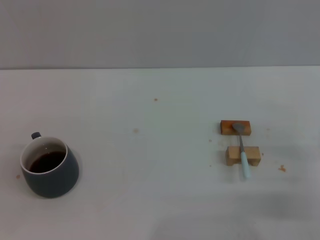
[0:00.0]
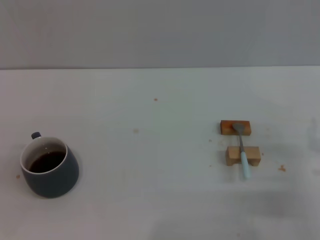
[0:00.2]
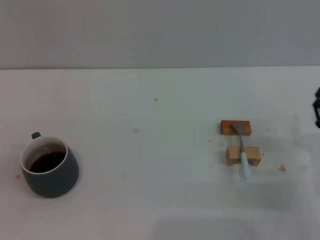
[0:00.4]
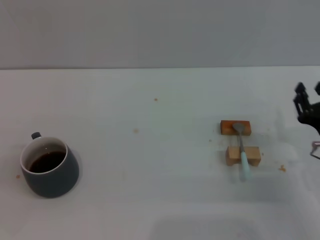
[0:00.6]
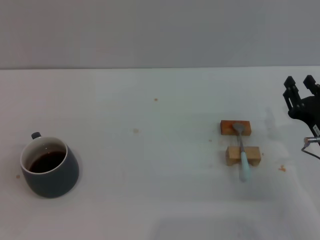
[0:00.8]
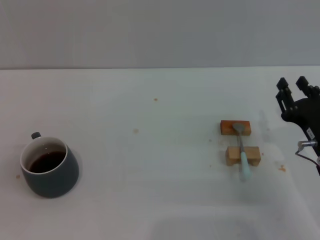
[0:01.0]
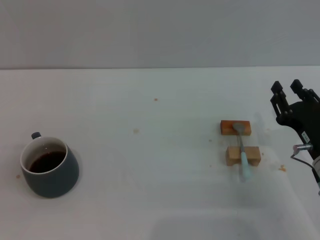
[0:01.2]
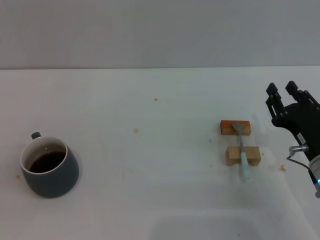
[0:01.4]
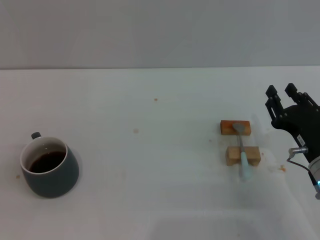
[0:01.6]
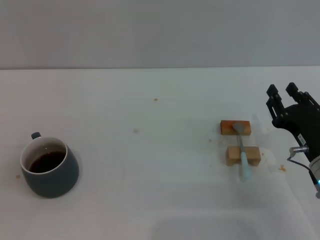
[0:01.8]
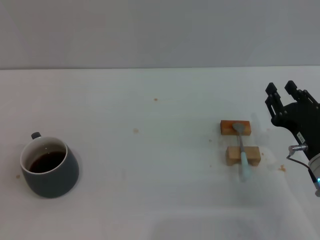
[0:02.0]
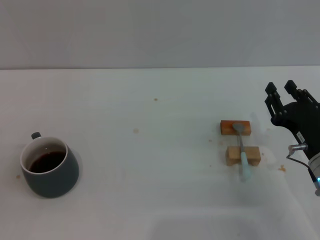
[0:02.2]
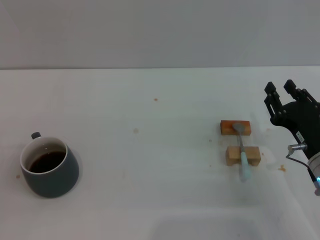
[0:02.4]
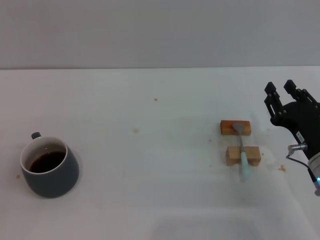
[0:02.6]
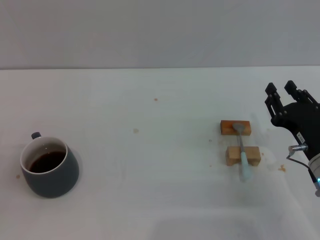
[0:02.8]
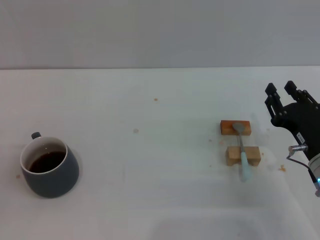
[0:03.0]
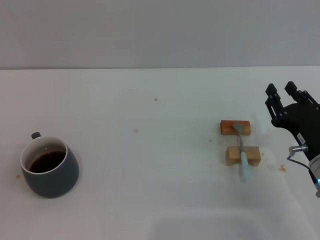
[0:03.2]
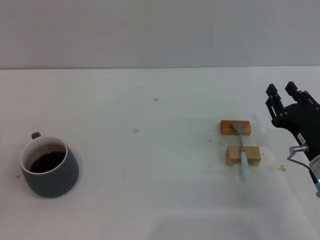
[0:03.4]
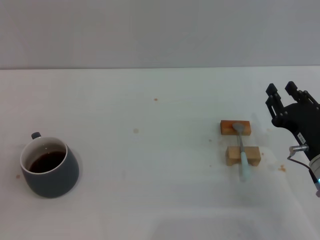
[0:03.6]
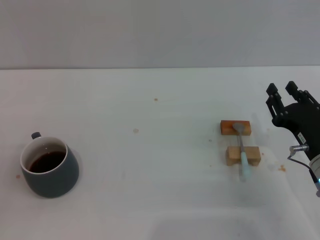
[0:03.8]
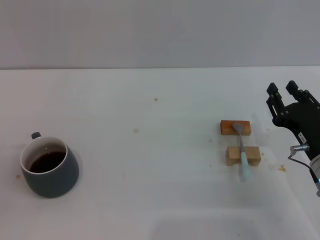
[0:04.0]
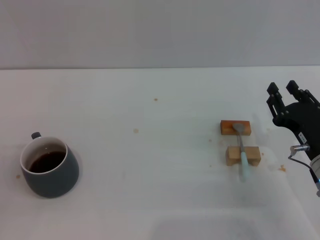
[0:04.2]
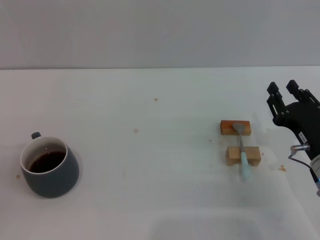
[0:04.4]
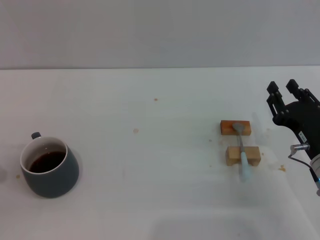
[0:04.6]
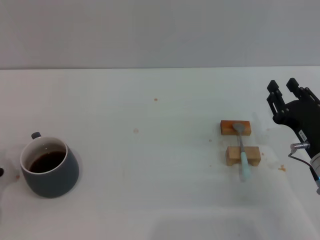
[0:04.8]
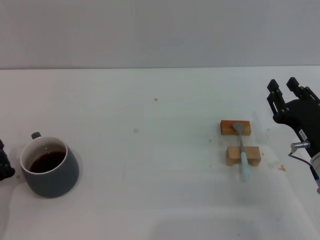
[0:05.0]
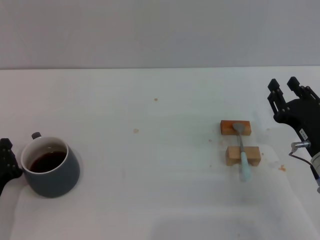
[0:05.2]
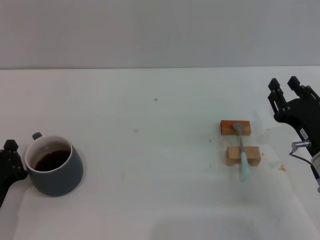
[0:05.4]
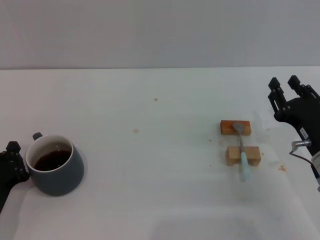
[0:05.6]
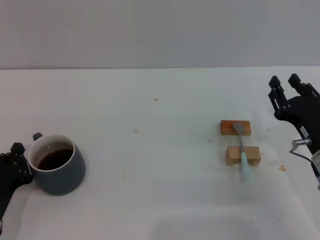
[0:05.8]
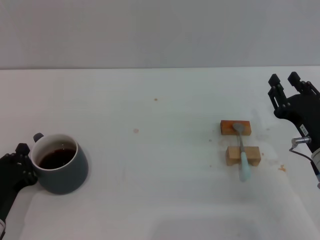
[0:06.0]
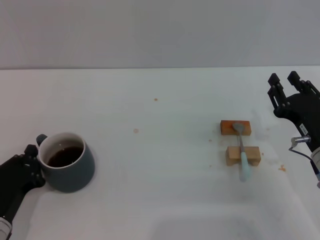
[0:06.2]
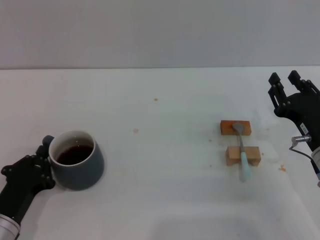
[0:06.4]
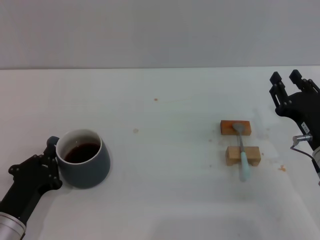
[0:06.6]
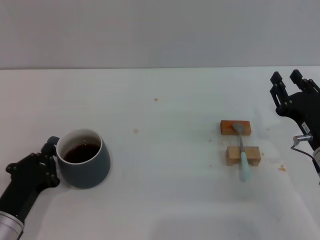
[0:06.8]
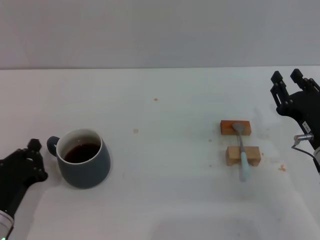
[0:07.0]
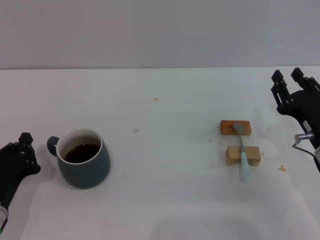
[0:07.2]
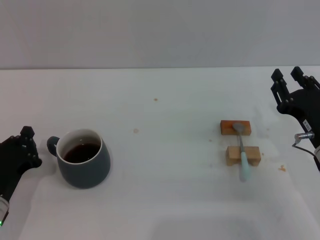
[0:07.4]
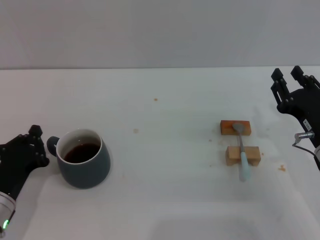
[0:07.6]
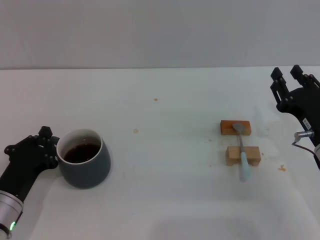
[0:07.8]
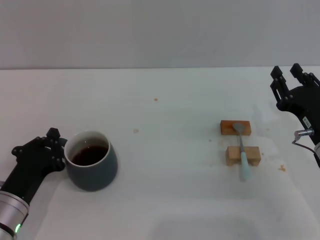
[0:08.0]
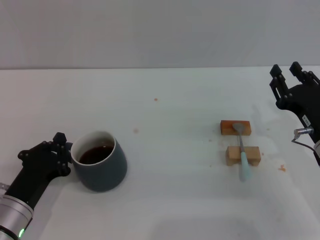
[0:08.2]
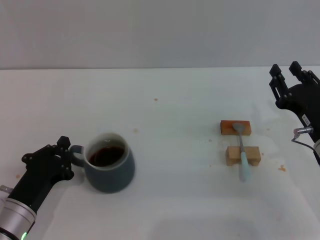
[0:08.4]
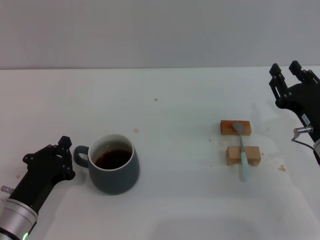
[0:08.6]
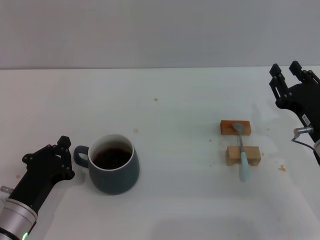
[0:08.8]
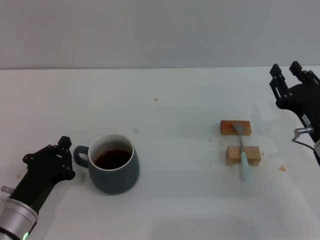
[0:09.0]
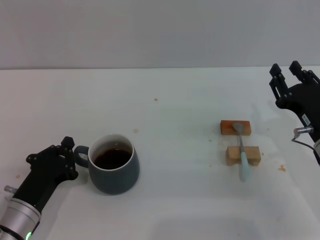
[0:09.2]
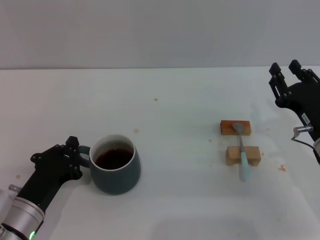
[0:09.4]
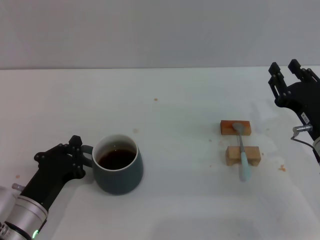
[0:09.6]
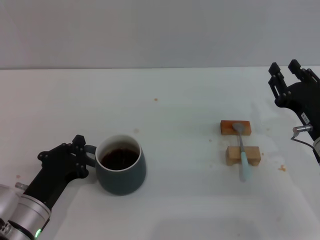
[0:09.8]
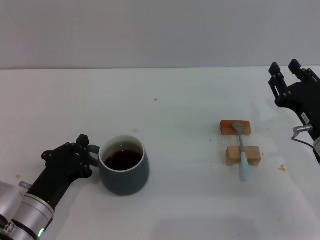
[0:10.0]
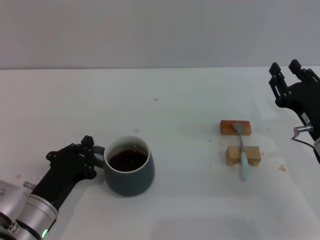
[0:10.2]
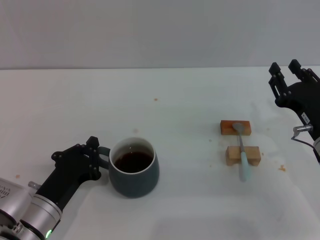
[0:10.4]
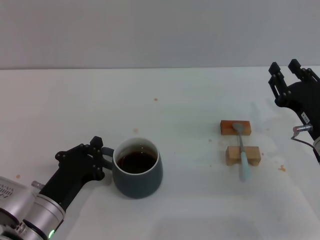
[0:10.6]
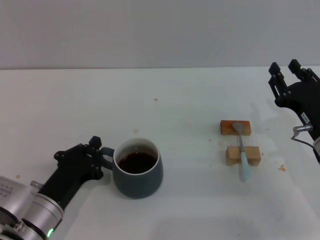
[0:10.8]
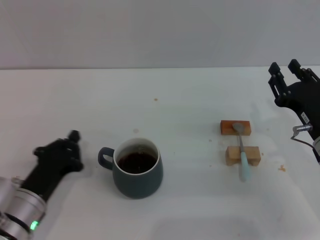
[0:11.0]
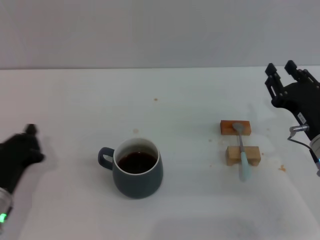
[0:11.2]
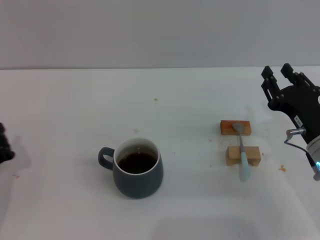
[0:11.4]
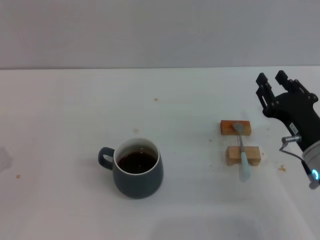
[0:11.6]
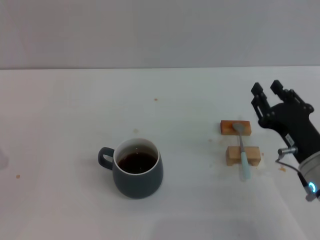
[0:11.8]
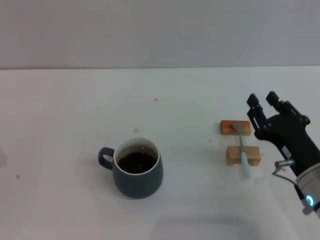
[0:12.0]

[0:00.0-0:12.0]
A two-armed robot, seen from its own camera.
Task of the whole recording: Move the grey cup to the center, lift the blue spoon, stir it three times in the cup, and put the spoon into the cup.
Step, 0:00.0 to 0:11.2: Move the cup with coffee to the center of view with the left gripper.
0:00.0 to 0:01.6: The right gripper travels to the left by some 5 cm.
0:01.6 to 0:03.0: There are only small adjustments of the grippers.
0:04.4 to 0:06.0: The left gripper goes about 5 cm to the right.
0:06.0 to 0:09.0: The grippers make only small movements.
0:09.0 to 0:10.4: The grippers move only a little.
0:10.4 to 0:12.0: The left gripper is displaced to the left by roughly 15 cm. The right gripper heads backward, covering about 5 cm.

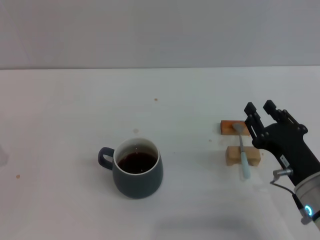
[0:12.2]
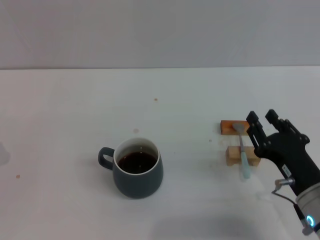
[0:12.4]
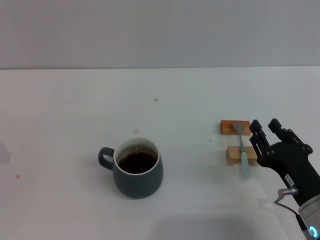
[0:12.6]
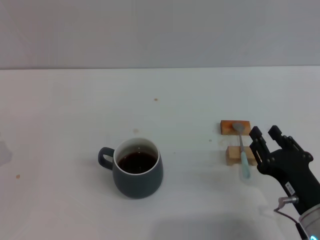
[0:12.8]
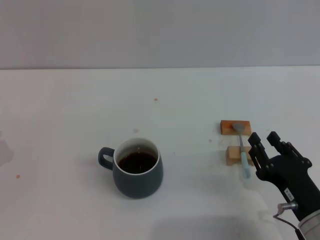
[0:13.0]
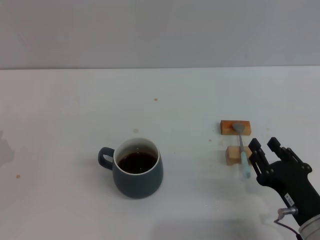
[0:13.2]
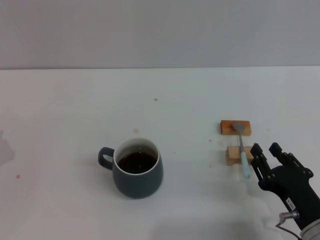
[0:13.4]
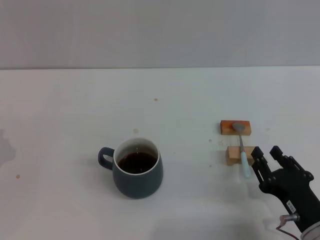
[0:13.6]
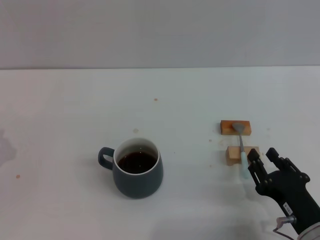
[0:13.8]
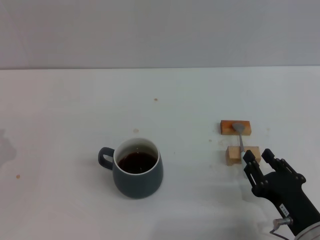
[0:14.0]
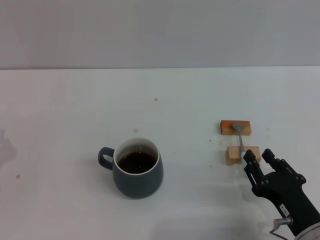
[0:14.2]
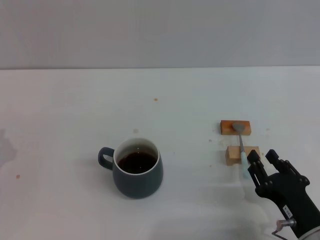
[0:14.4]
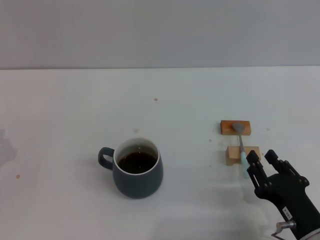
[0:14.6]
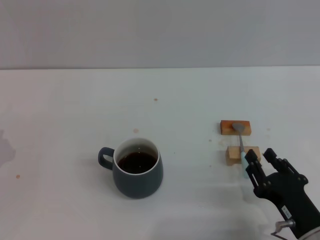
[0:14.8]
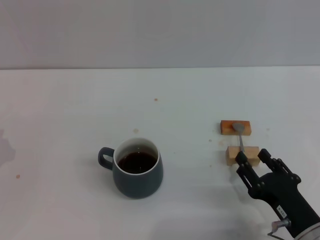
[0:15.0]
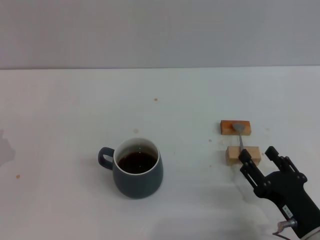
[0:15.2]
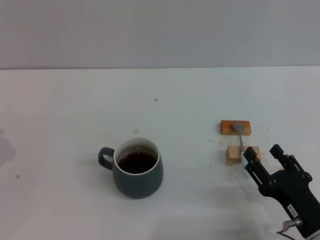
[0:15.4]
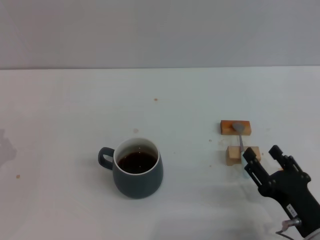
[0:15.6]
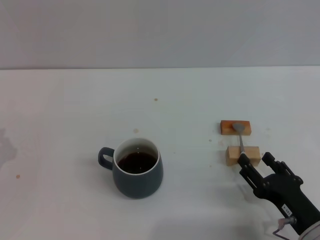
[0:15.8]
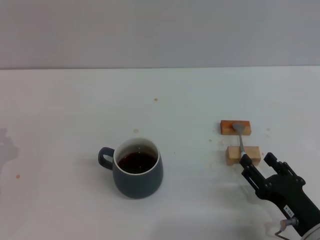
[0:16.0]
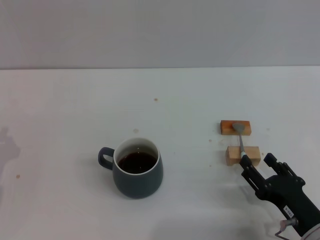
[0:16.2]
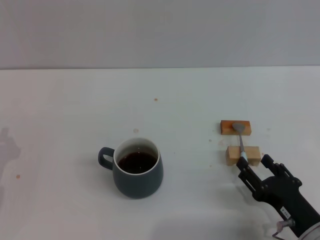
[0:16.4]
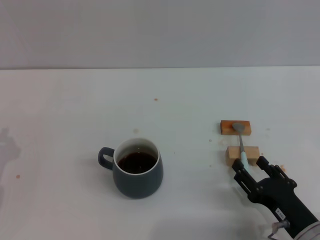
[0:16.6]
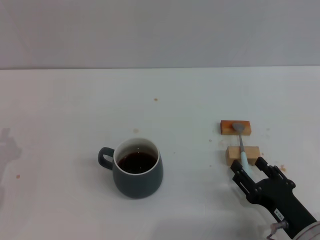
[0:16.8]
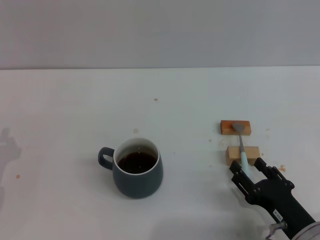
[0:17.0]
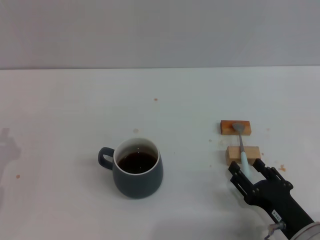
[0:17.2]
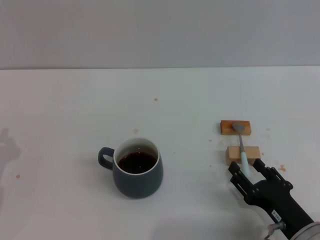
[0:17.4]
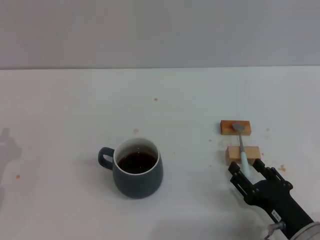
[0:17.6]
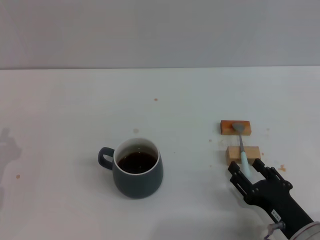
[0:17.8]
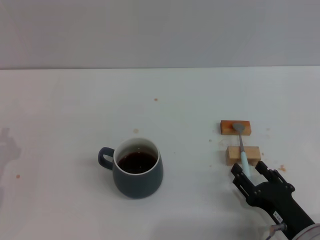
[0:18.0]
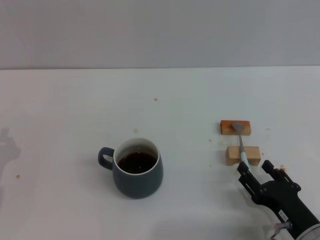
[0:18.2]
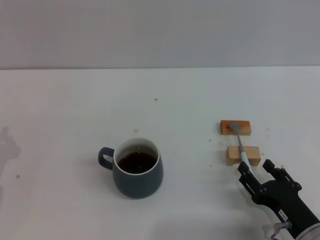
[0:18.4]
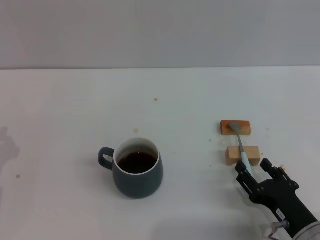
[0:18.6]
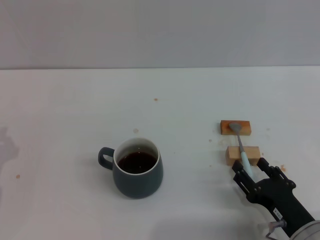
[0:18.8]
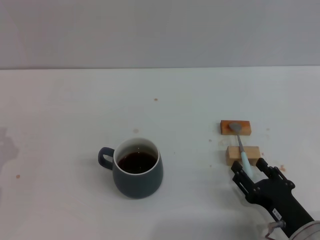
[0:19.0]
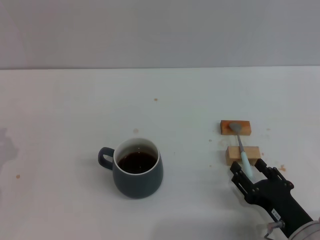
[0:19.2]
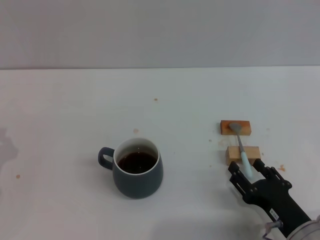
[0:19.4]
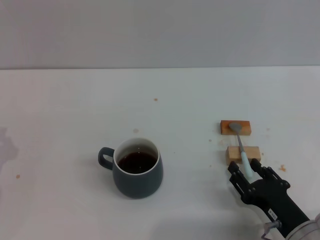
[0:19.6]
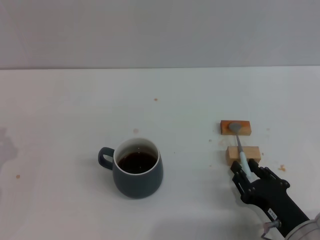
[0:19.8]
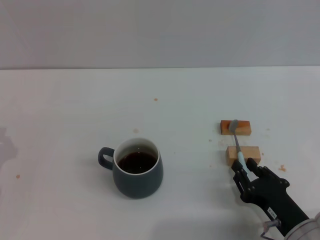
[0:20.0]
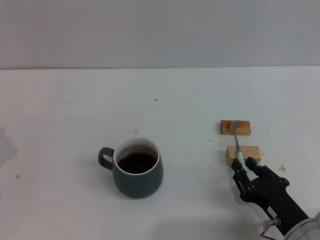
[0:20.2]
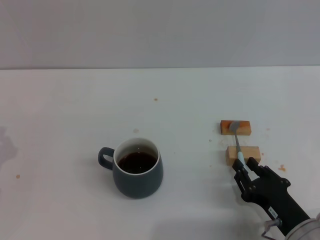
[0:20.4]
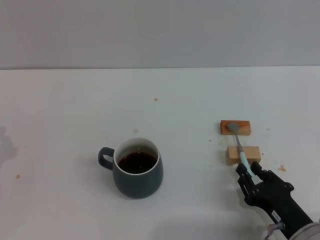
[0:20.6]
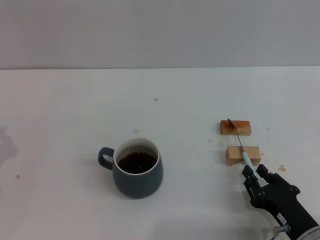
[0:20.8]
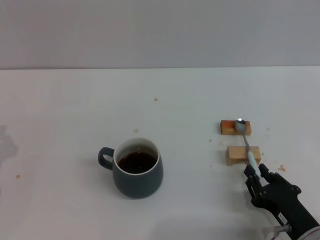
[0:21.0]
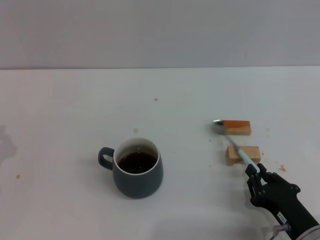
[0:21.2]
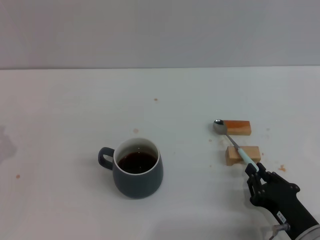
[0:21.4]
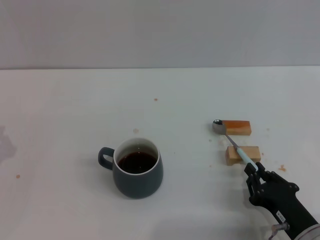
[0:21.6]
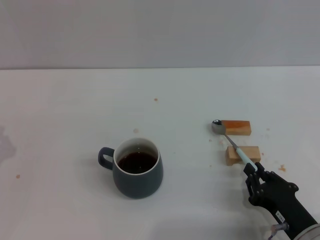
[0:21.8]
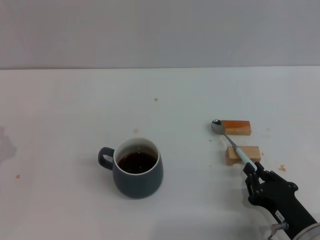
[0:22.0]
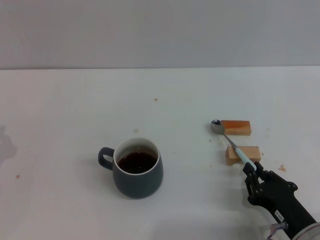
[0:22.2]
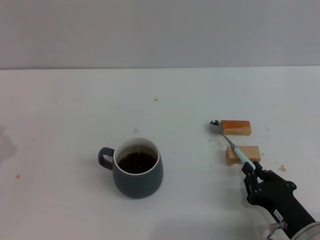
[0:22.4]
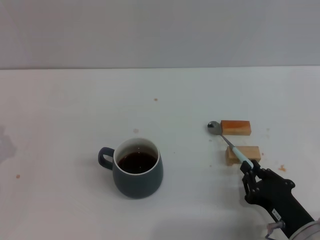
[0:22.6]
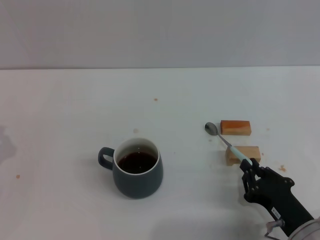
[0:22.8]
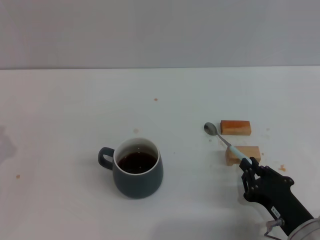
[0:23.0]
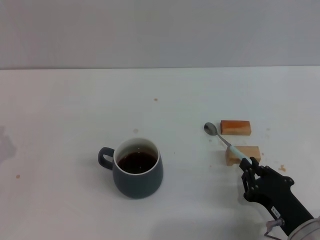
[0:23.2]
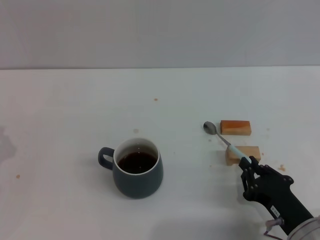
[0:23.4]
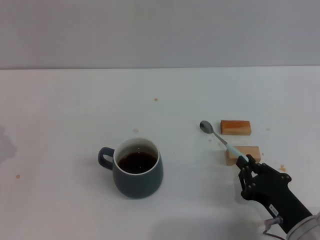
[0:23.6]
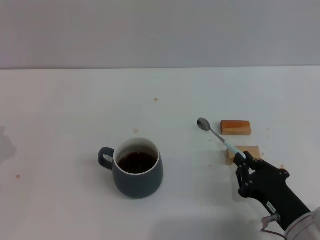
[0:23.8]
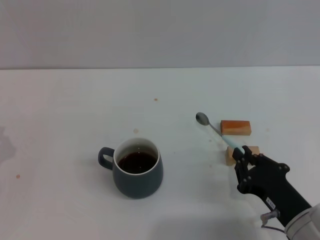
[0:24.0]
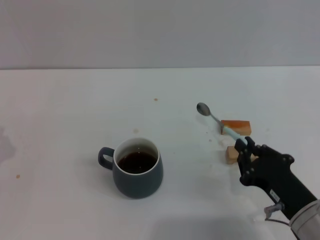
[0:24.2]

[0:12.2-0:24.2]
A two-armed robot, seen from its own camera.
Task of the whole recording: Move the grey cup to the center, lift the blue spoon, stir it three times in the cup, and put the spoon into the cup.
0:12.2 to 0:13.8: The right gripper goes approximately 5 cm backward.
0:13.8 to 0:15.2: The two grippers keep their place.
0:15.2 to 0:16.6: The grippers move only a little.
0:16.6 to 0:19.8: The two grippers keep their place.
0:19.8 to 0:21.2: The right gripper closes its fingers.
0:21.2 to 0:22.6: Neither gripper changes place.
0:22.6 to 0:24.2: The right gripper is displaced upward by some 5 cm.
